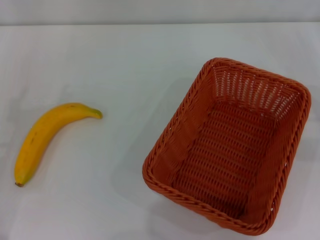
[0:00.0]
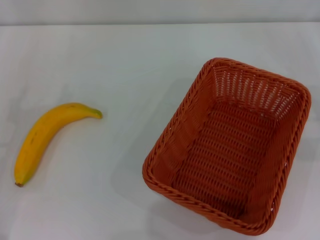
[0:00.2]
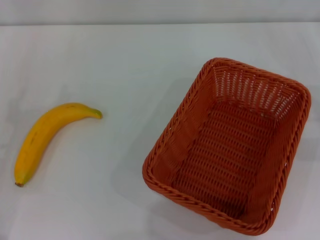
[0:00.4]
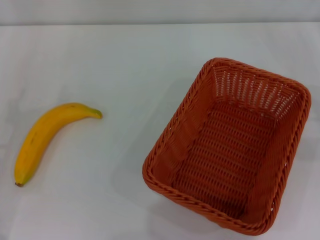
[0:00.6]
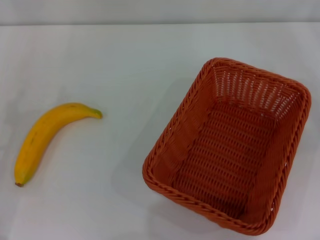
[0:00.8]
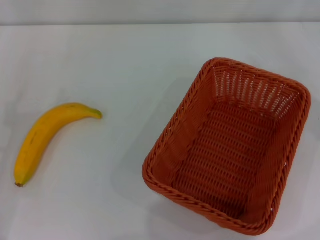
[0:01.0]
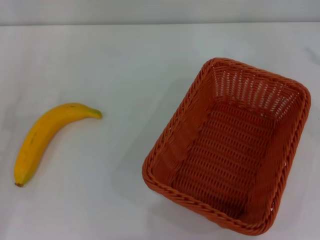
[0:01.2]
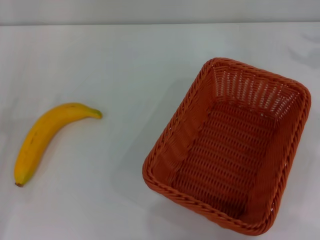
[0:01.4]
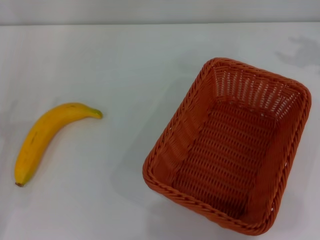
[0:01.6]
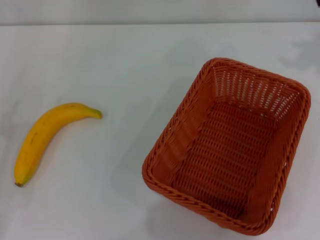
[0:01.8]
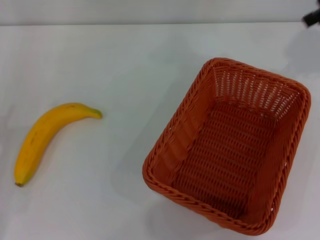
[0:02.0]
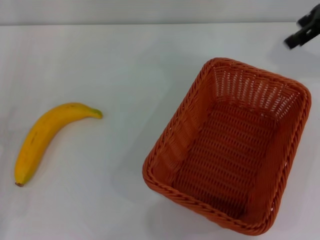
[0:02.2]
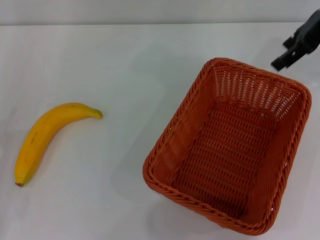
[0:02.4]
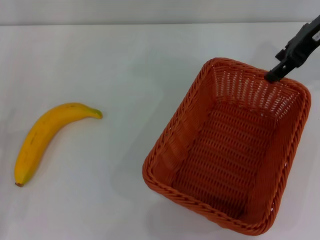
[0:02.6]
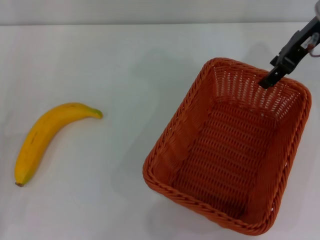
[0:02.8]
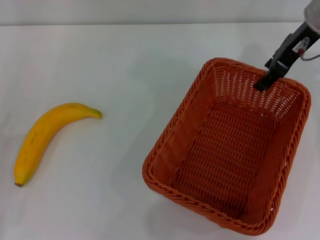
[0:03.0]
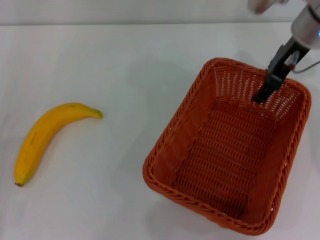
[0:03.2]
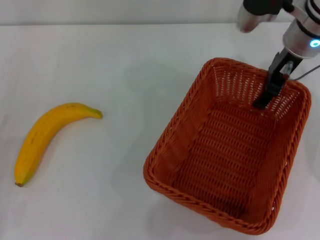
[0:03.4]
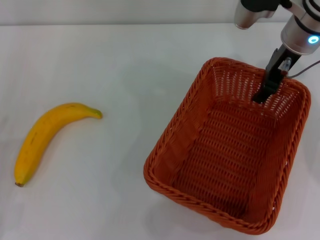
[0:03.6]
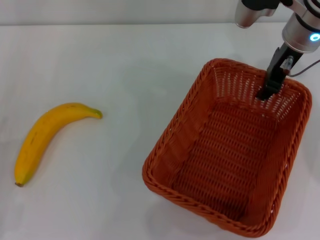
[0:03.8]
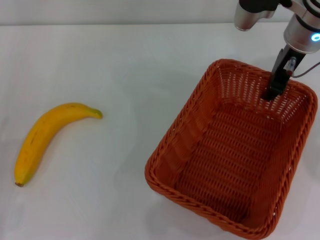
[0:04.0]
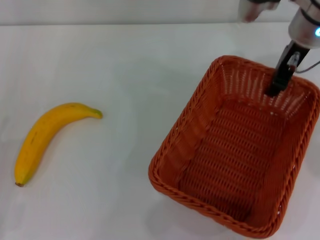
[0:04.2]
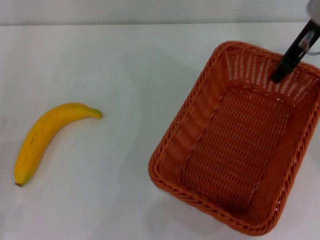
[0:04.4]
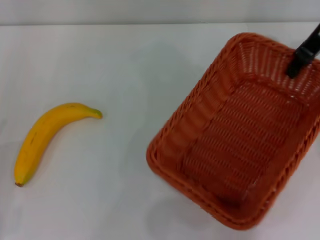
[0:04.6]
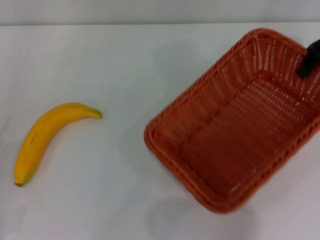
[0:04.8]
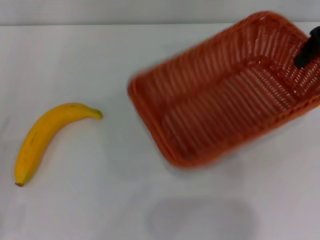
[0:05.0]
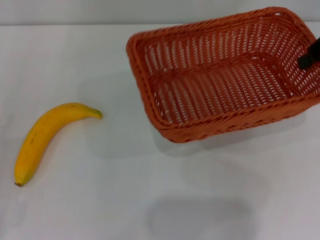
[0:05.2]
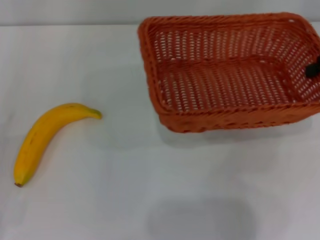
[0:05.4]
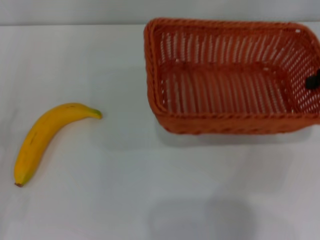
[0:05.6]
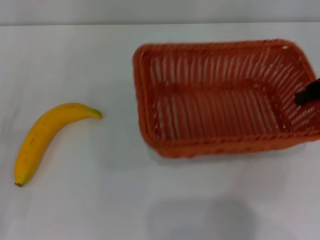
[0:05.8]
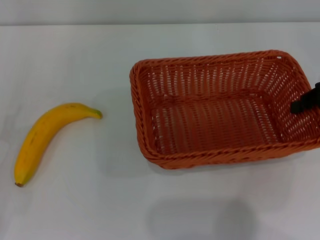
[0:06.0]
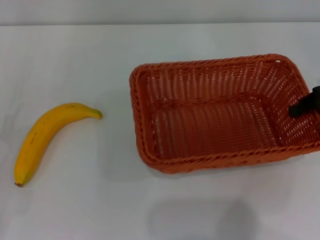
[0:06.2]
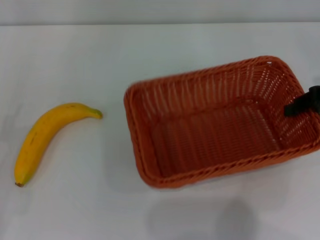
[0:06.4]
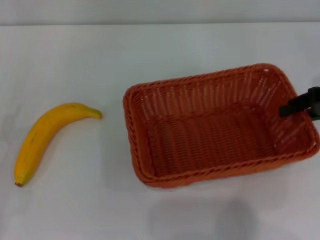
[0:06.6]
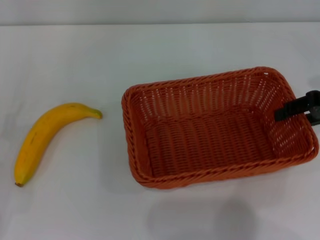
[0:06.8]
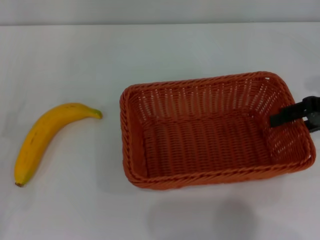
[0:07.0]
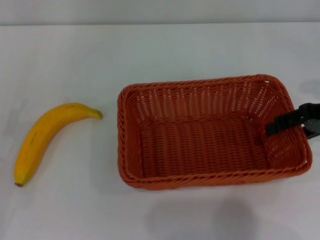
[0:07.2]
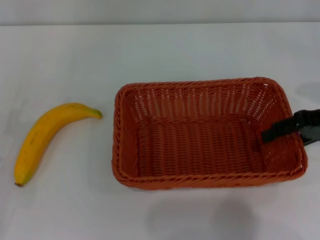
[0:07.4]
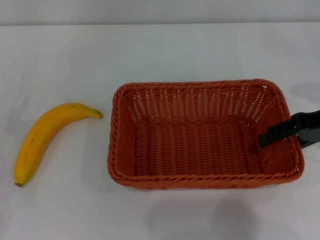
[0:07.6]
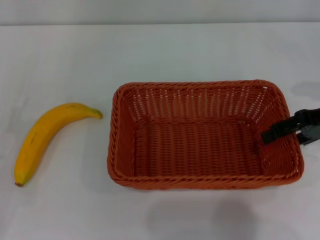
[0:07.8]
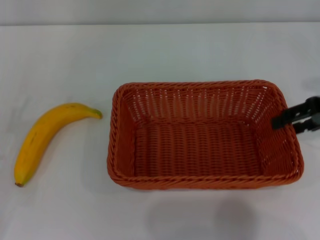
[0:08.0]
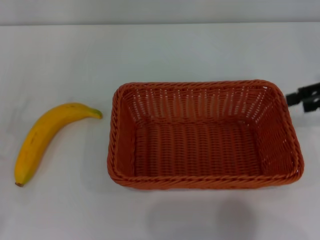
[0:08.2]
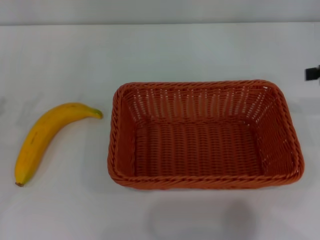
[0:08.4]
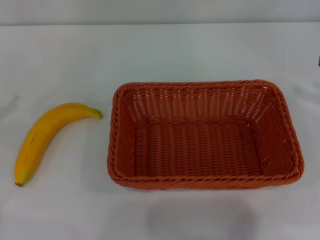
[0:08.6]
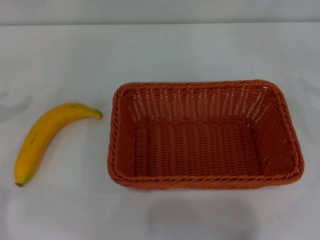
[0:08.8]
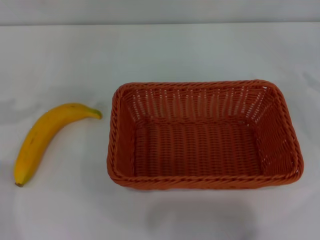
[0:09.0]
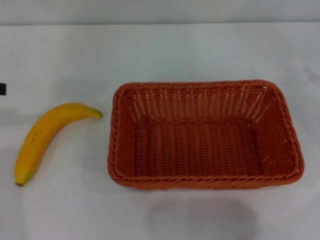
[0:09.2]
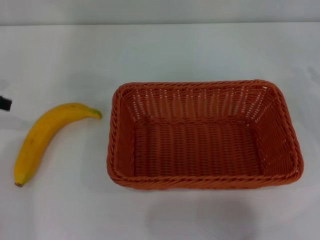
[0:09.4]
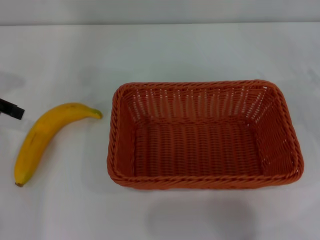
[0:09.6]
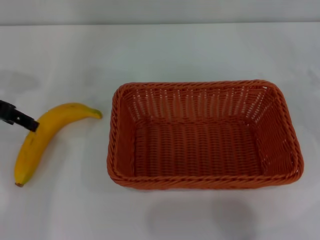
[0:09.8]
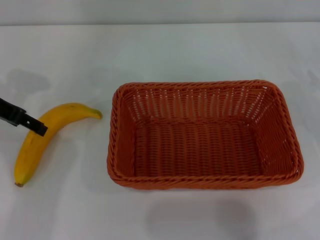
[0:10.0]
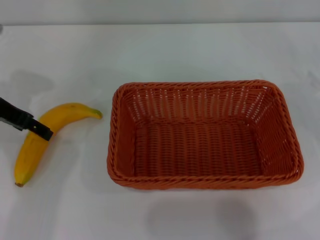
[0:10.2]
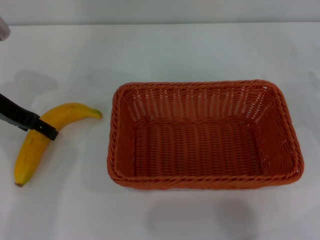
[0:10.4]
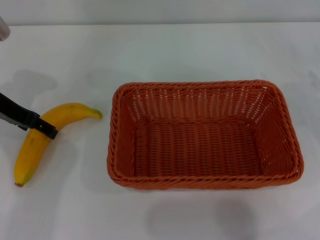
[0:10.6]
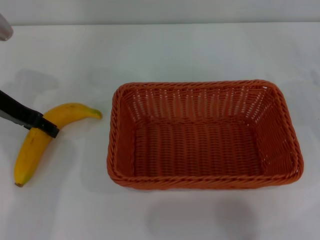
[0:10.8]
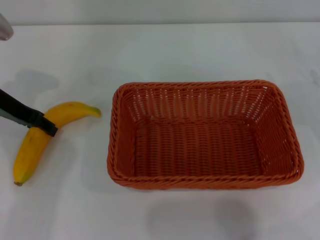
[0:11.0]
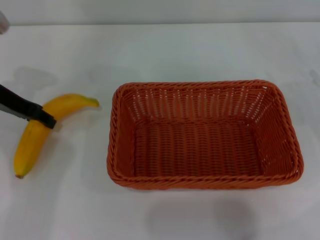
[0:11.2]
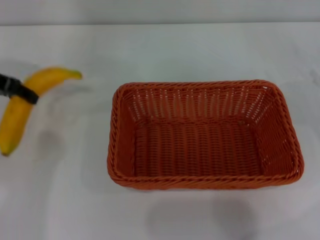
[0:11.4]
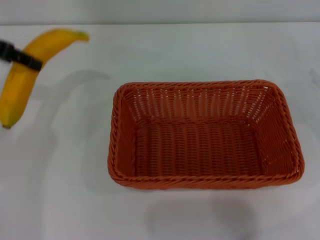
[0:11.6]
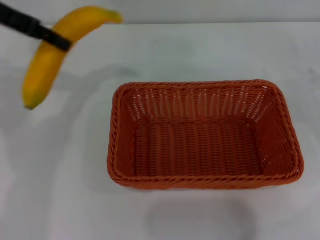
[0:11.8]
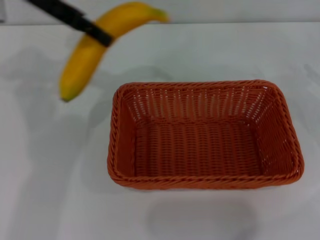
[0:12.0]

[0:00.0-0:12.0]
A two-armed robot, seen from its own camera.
Step, 0:00.0 to 0:04.6: Pick up the light basket with the right gripper.
Step, 0:04.8 to 0:08.0: Place the light basket in the center of view with the right gripper.
Step, 0:08.2 to 0:11.4: Pick up the banana with the left gripper.
0:01.6 to 0:03.0: The right gripper heads to the left and downward, covering roughly 15 cm.
0:03.0 to 0:04.4: The right gripper closes.
0:04.4 to 0:06.0: The right gripper heads to the right, backward and downward, covering roughly 15 cm.
0:06.0 to 0:07.6: The right gripper opens.
0:07.6 to 0:09.0: The right gripper moves to the right, some 10 cm.
0:09.0 to 0:10.4: The left gripper is displaced to the right and forward by about 15 cm.
0:10.4 to 0:12.0: The left gripper shifts approximately 15 cm upward and to the right, and closes.

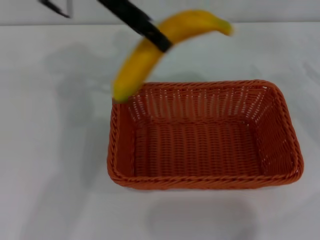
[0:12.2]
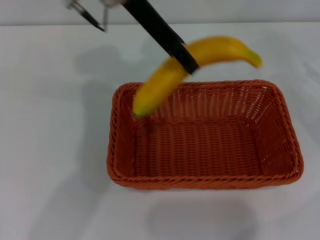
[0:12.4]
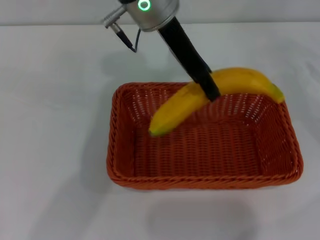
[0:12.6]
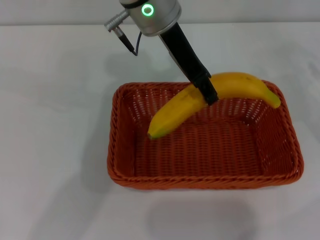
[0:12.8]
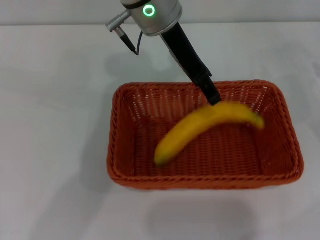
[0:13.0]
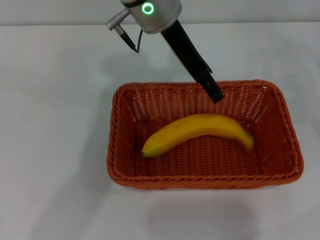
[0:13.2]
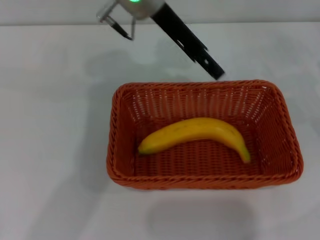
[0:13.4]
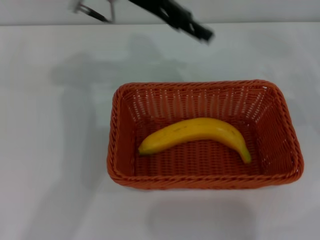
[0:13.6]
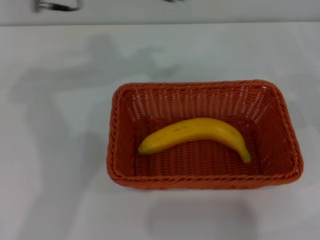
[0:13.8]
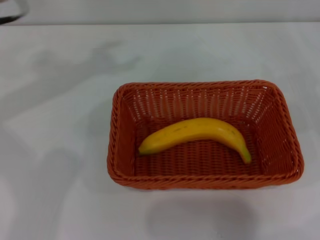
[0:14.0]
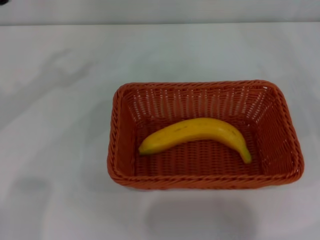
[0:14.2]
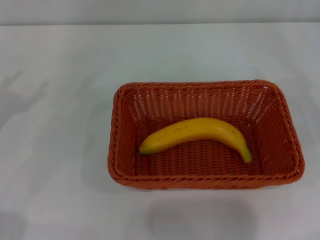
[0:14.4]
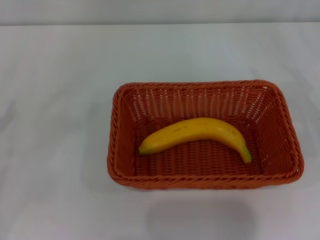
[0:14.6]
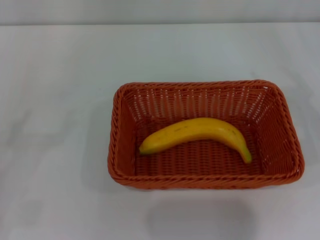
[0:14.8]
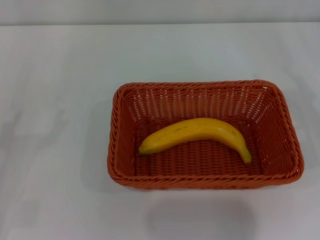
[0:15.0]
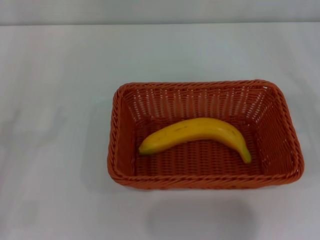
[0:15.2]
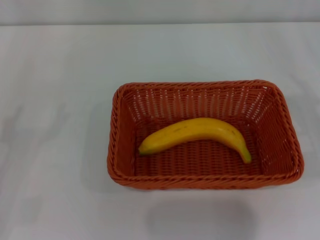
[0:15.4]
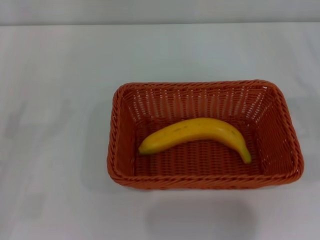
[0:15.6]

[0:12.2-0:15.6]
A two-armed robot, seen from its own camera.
Step, 0:12.2 to 0:13.2: Place the banana into the light basket with the left gripper.
0:12.2 to 0:13.8: The left gripper reaches roughly 10 cm to the right, then returns, and opens up.
0:13.8 to 0:15.6: The left gripper travels backward, to the left and downward by roughly 35 cm.
